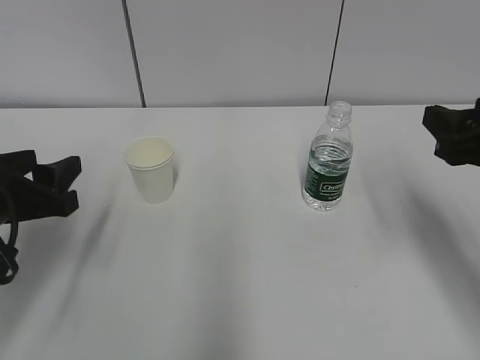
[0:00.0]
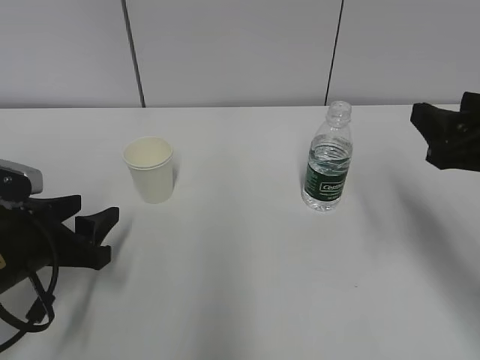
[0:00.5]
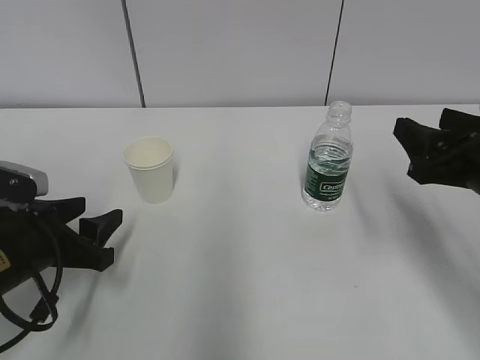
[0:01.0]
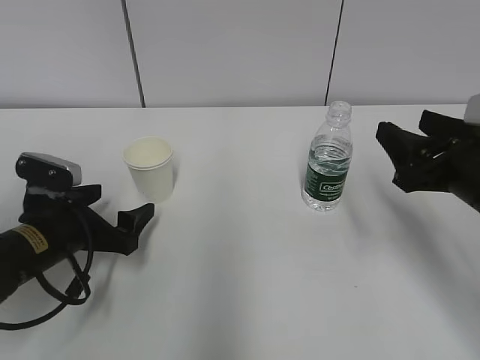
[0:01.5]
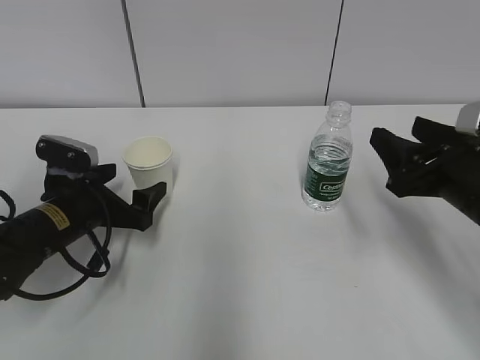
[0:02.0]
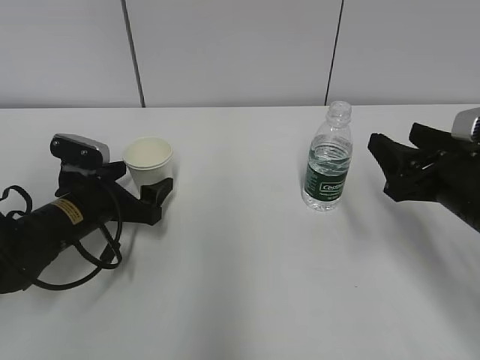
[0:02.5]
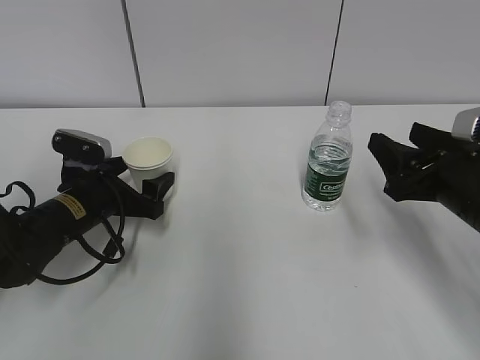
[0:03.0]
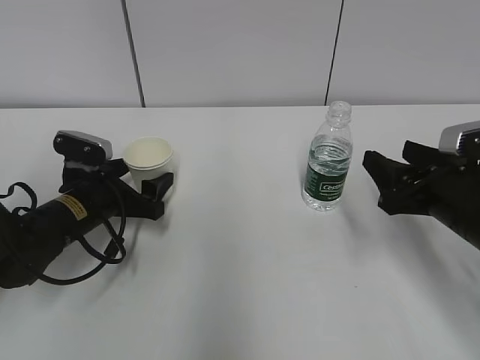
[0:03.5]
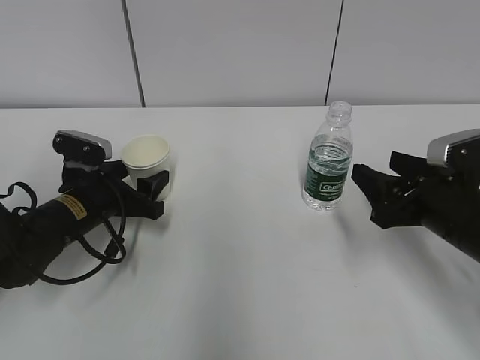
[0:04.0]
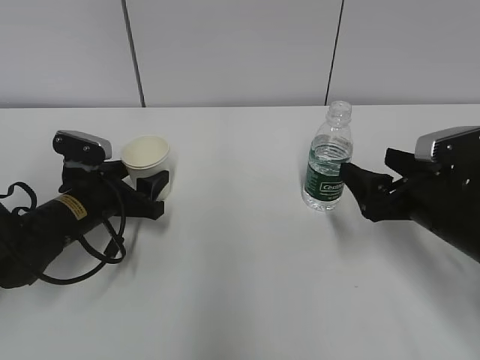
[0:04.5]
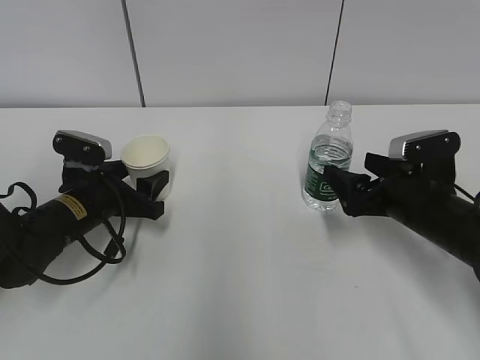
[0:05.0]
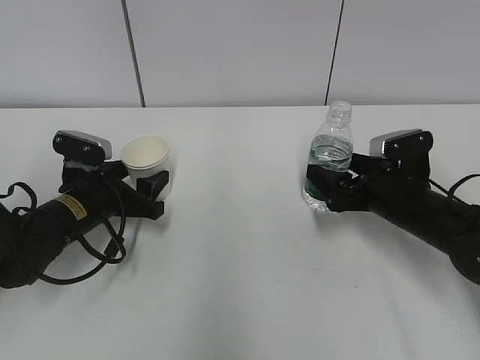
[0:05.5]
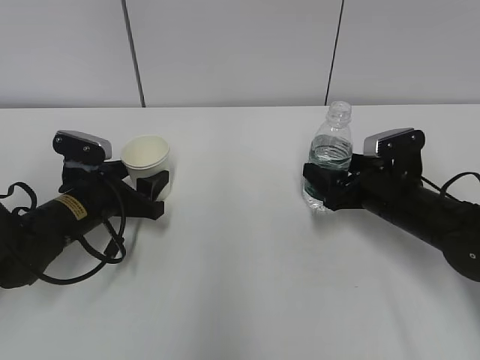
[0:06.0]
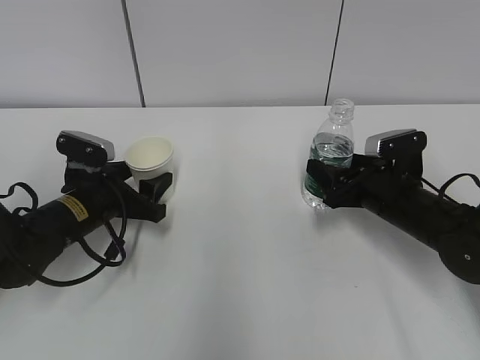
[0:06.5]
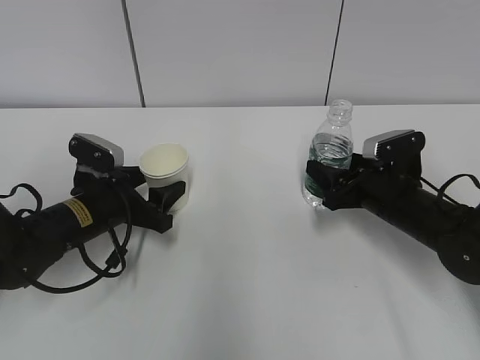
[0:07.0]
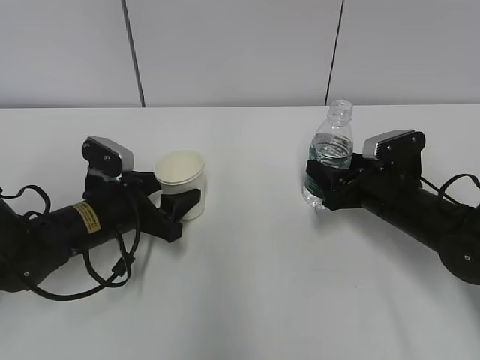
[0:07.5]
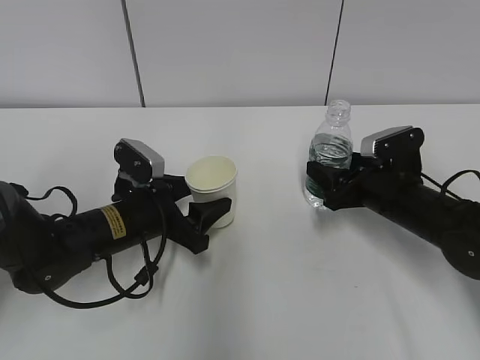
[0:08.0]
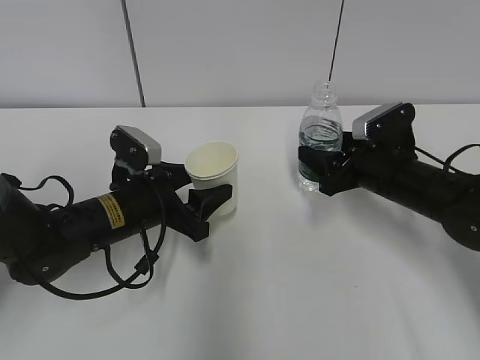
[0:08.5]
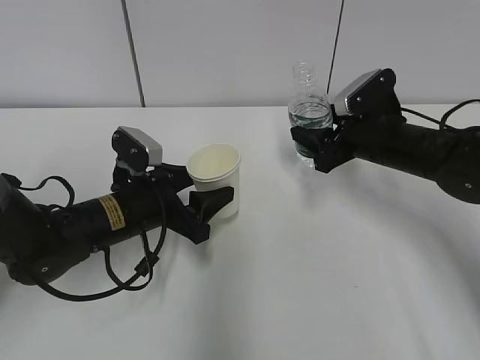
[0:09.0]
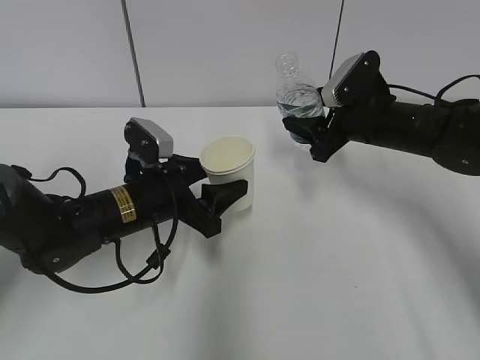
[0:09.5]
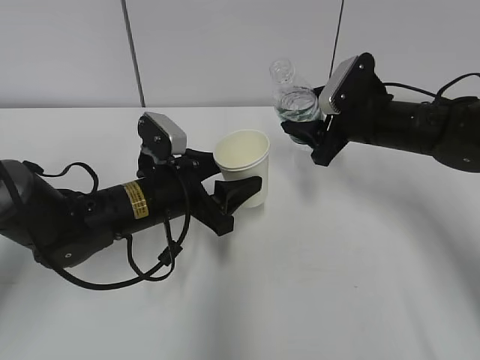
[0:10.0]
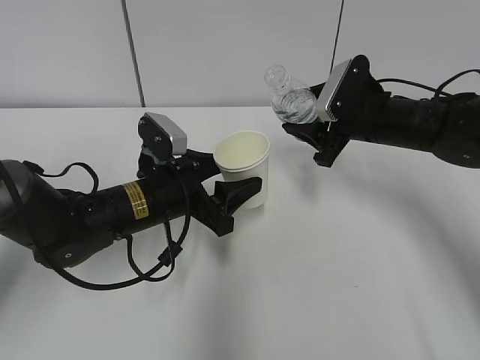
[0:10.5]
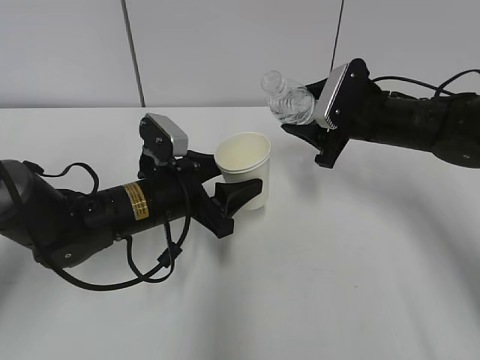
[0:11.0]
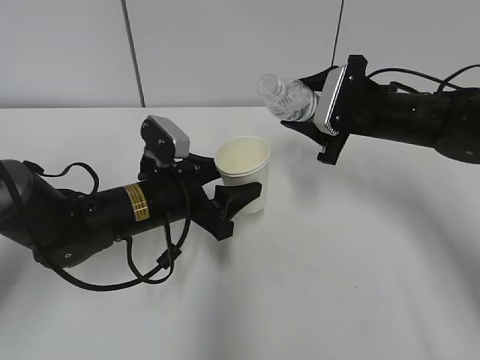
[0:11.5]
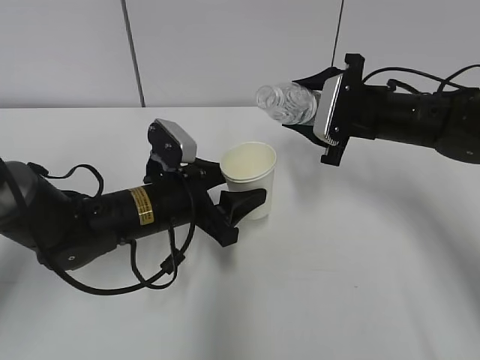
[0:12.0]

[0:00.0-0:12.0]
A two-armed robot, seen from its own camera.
Step, 0:00.0 to 0:05.5: Grab the paper cup with the left hand.
Step, 0:06.0 to 0:12.0: Lift the paper cup with the left hand.
0:00.0 to 0:02.0: The left gripper goes about 10 cm downward and forward, and opens its fingers. The right gripper travels downward by some 5 cm.
0:02.0 to 0:04.0: The left gripper closes up.
0:04.0 to 0:06.0: The right gripper heads forward and downward, covering approximately 10 cm, and opens.
0:06.0 to 0:08.0: The left gripper heads to the right, covering about 5 cm; the right gripper closes.
0:08.0 to 0:10.0: The right gripper is displaced upward and forward by roughly 10 cm.

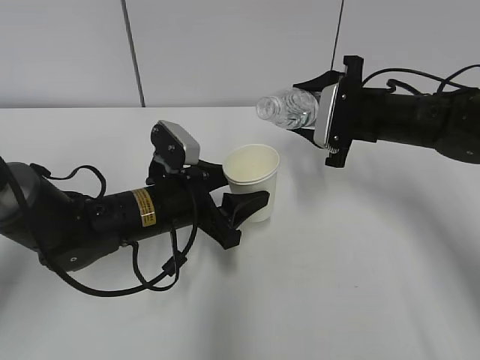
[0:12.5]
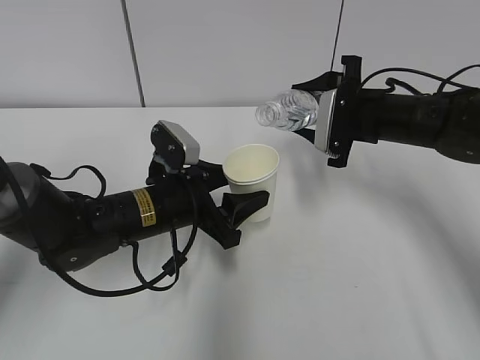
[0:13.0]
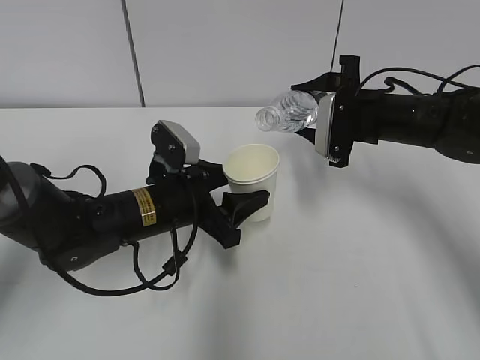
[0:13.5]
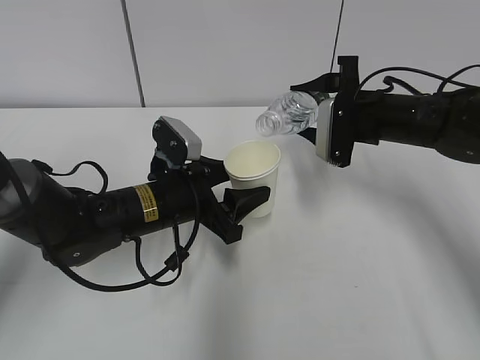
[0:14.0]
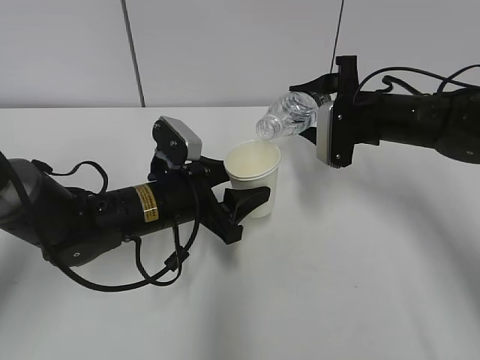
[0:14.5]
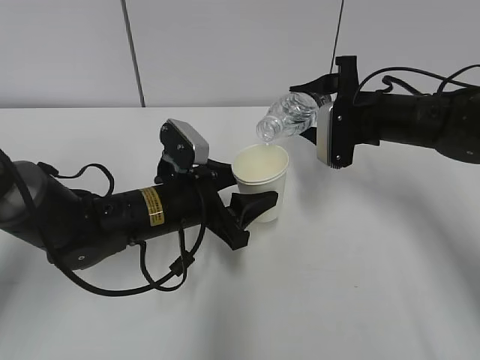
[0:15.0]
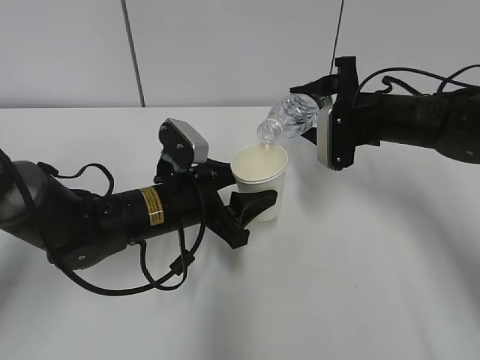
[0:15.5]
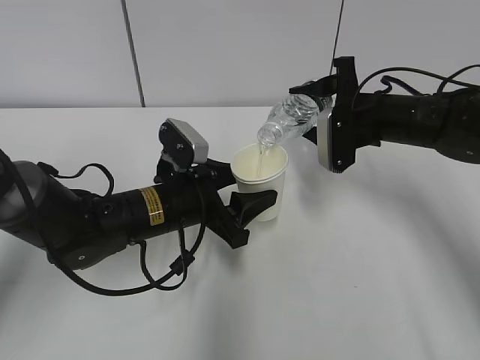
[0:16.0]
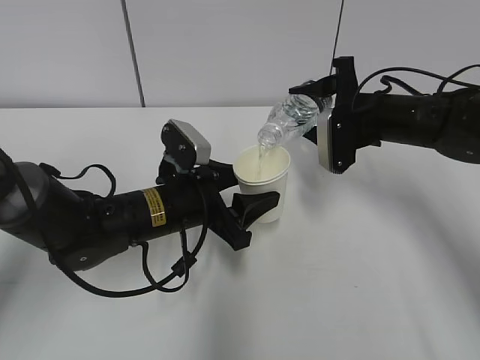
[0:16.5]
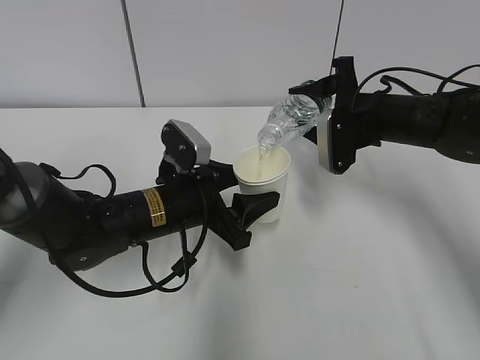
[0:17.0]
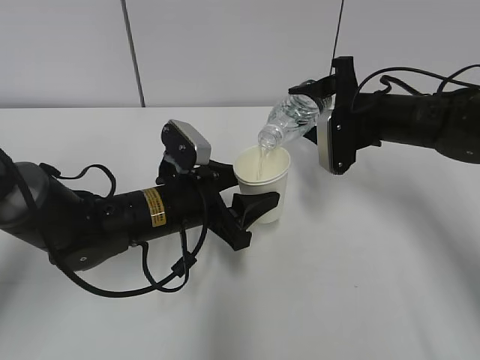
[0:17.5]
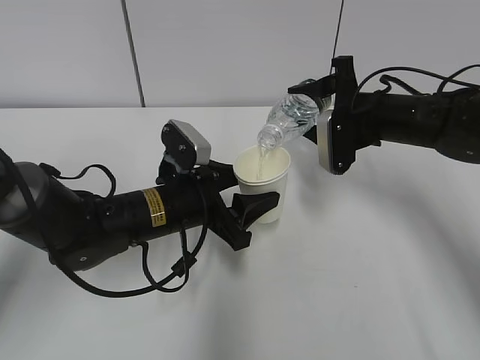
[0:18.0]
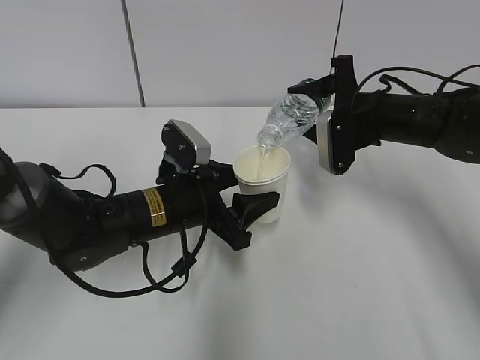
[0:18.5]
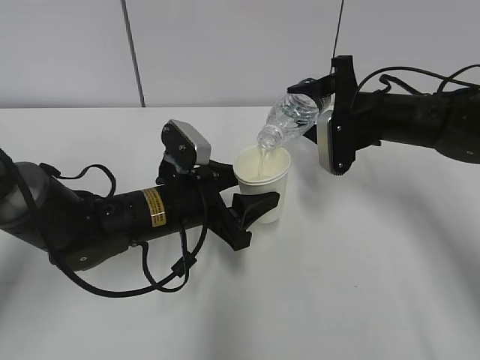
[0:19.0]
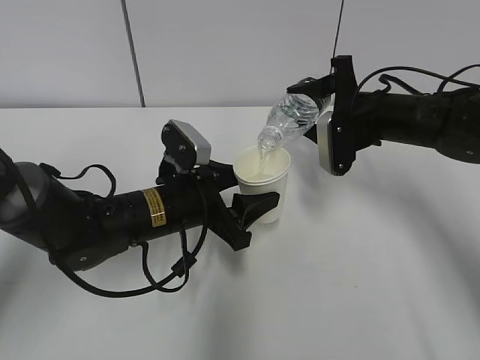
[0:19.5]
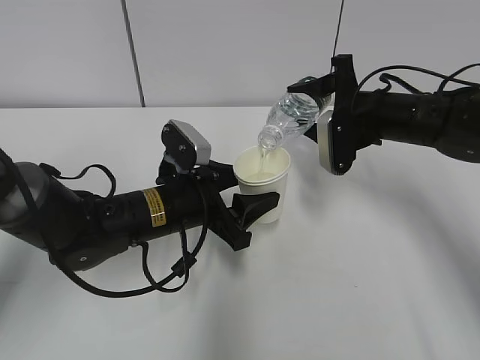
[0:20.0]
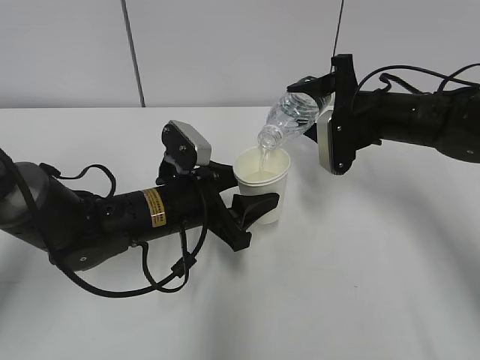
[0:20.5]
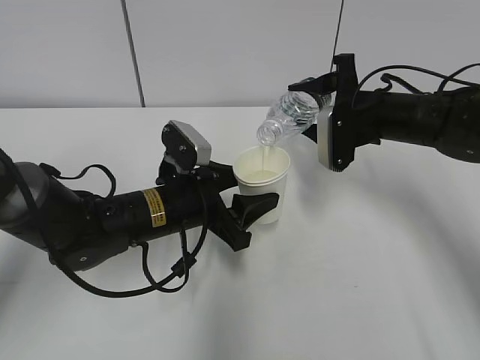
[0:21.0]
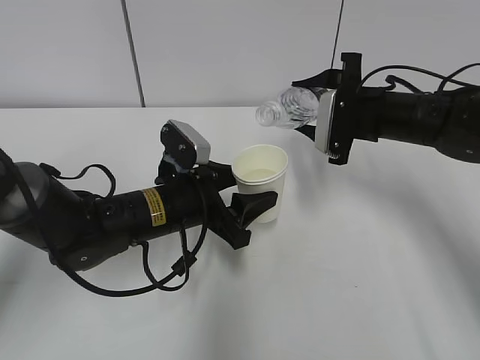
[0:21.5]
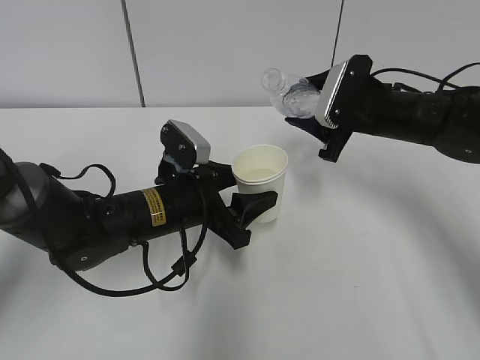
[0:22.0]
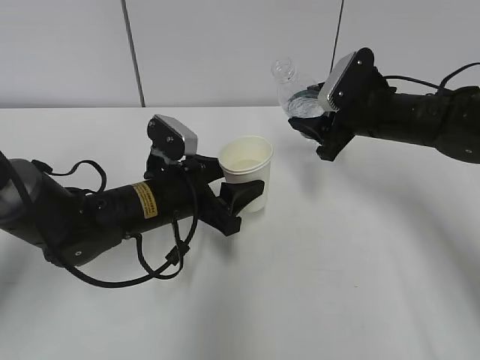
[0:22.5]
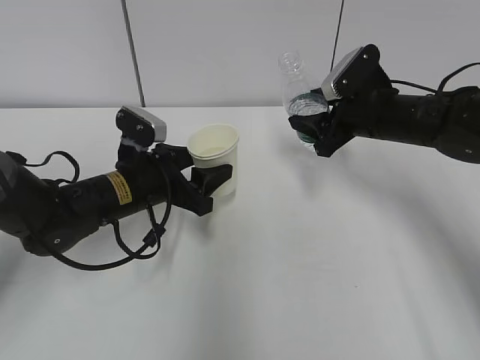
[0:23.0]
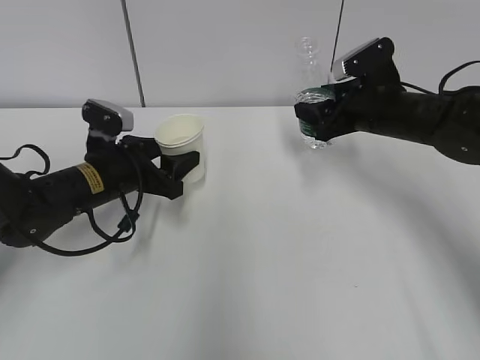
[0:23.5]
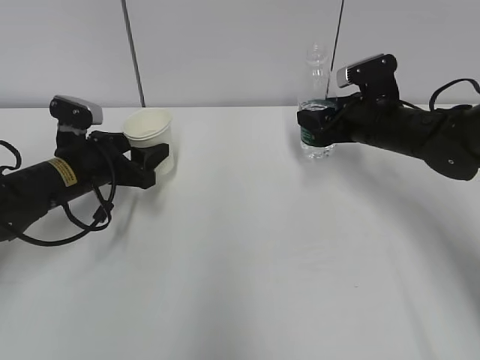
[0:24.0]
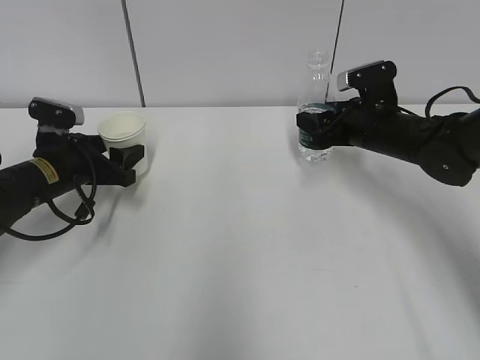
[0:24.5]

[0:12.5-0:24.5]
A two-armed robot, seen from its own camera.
Step, 0:12.5 to 0:16.5: Fill water with the left hand.
Step, 0:19.5 to 0:22.0: Place the water bottle with the right hand.
0:12.5 to 0:14.5: The grippers stay close to where they were, moving slightly.
0:14.5 to 0:16.5: The grippers stay close to where they were, moving slightly.
0:16.5 to 0:20.5: Both grippers stay put.
0:22.5 to 0:24.5: The left gripper moves to the left and forward, about 15 cm.

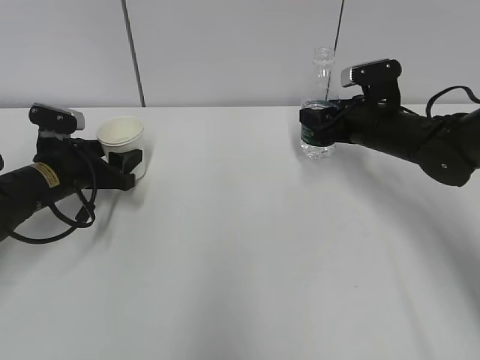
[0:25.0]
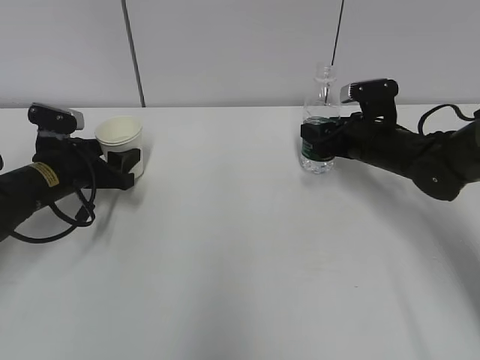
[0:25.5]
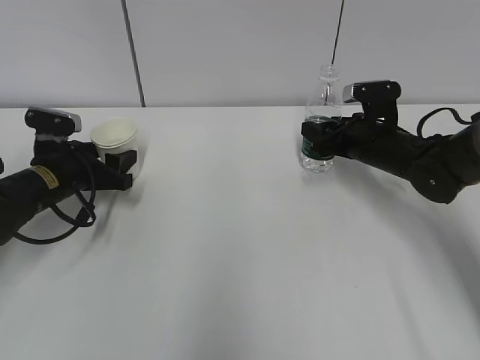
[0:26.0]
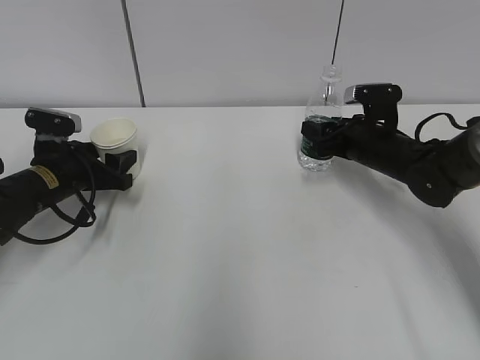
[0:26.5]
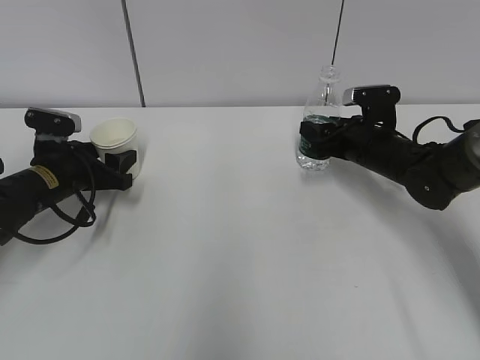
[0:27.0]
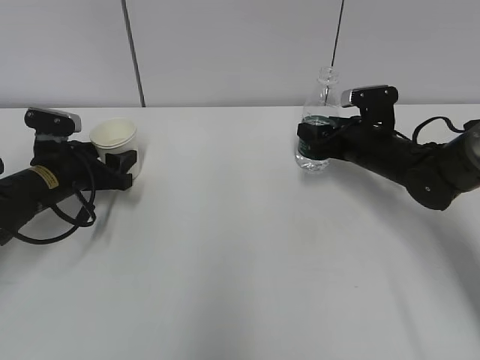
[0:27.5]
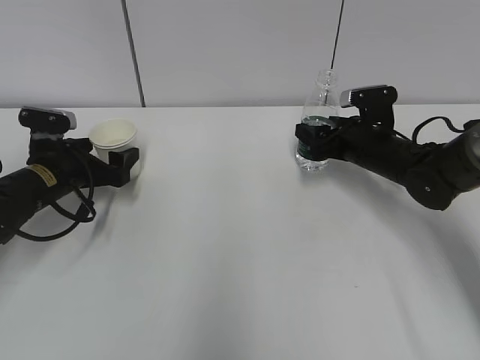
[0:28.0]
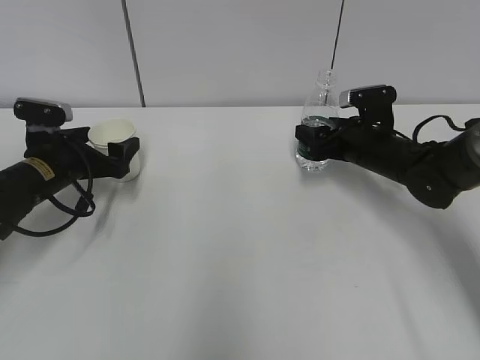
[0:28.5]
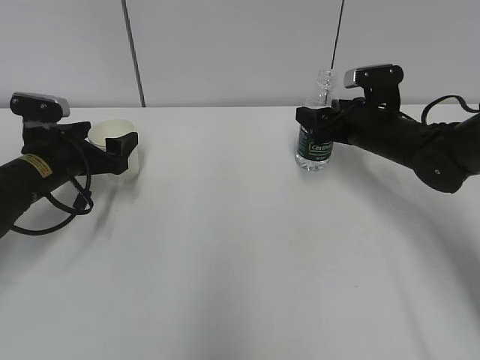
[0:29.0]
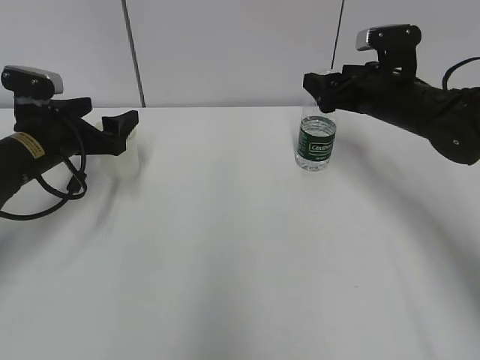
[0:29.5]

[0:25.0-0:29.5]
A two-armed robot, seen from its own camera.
0:25.0 to 0:27.0: The grippers stay close to where they were, moving slightly.
0:27.0 to 0:29.5: The left gripper moves upward, approximately 5 cm, and opens its fingers; the right gripper goes about 10 cm upward, and opens its fingers.
